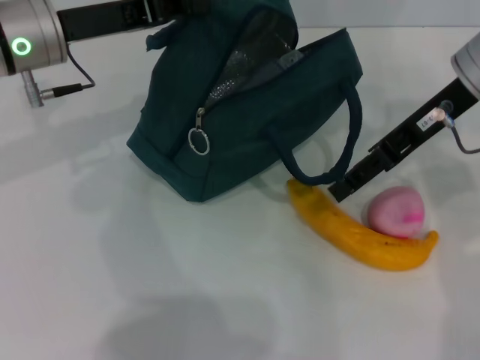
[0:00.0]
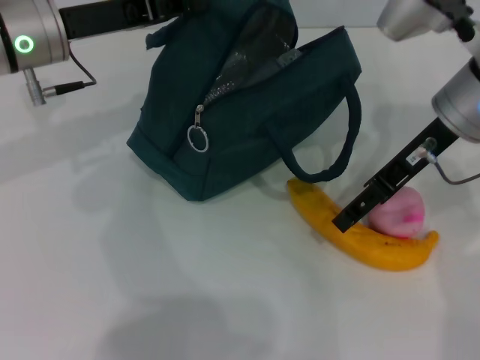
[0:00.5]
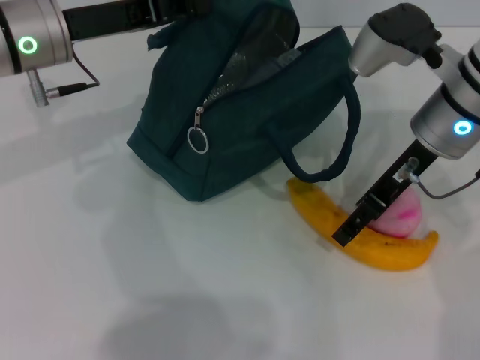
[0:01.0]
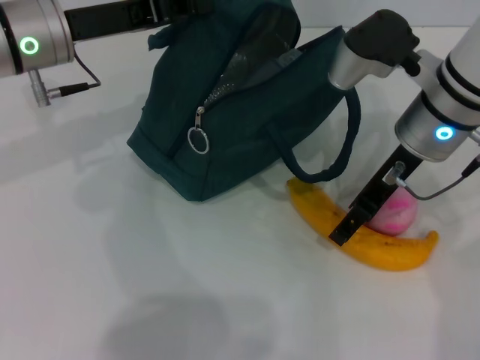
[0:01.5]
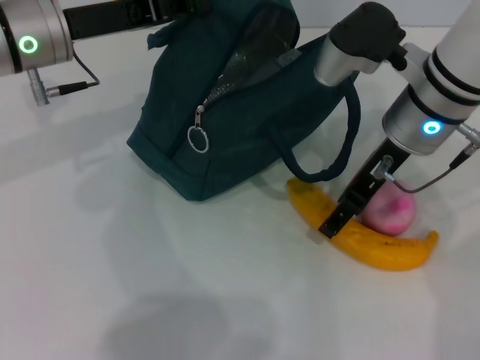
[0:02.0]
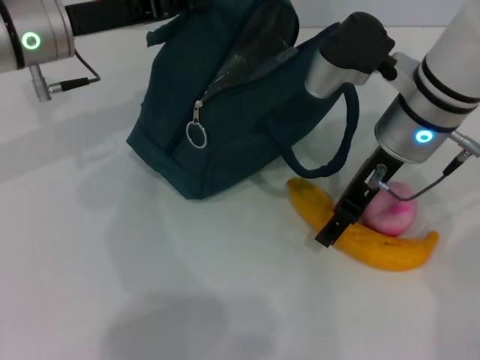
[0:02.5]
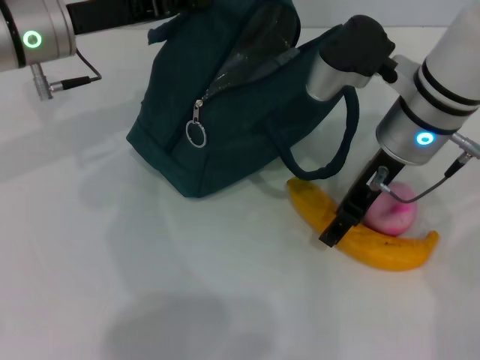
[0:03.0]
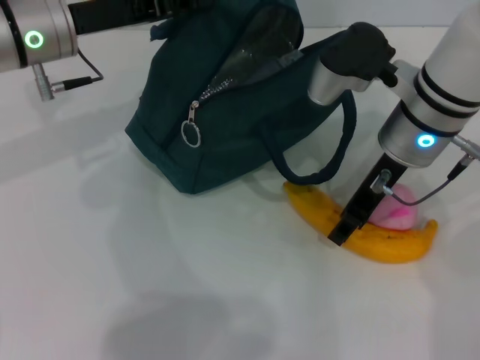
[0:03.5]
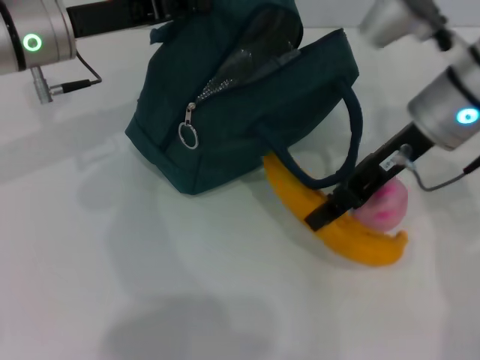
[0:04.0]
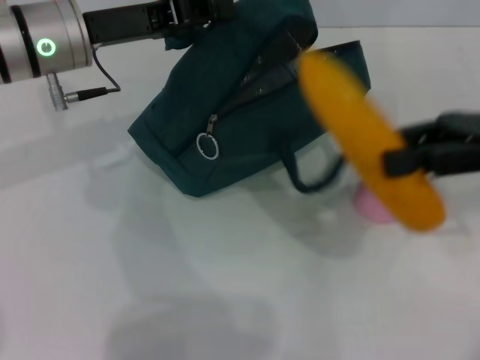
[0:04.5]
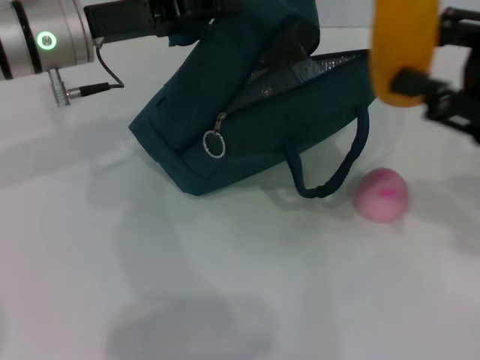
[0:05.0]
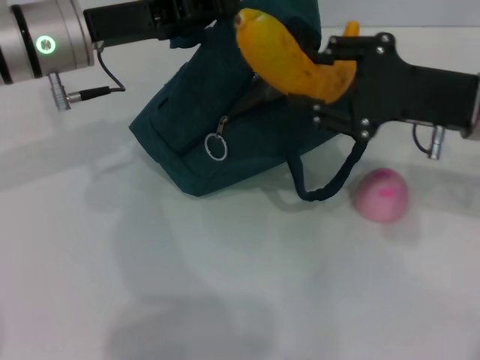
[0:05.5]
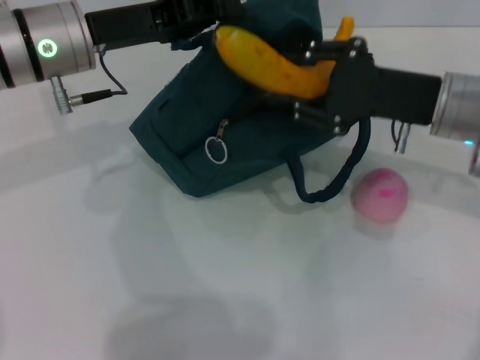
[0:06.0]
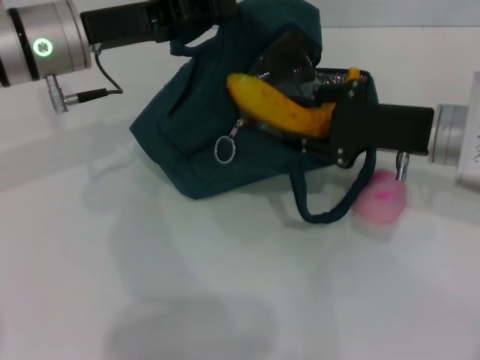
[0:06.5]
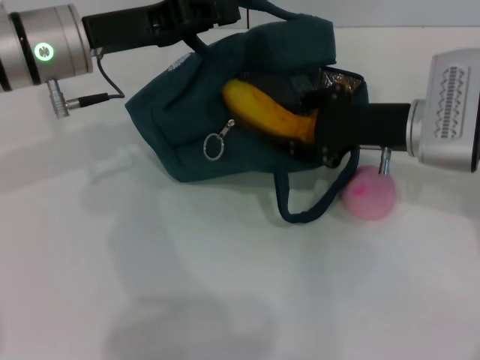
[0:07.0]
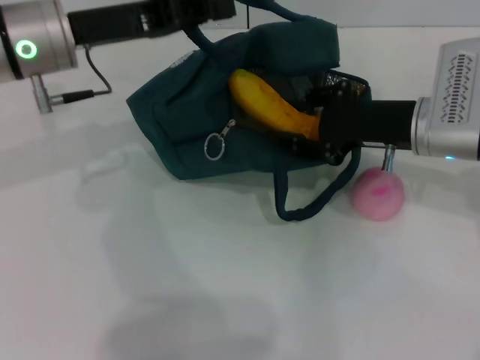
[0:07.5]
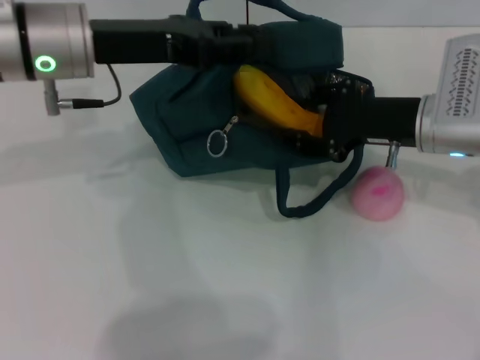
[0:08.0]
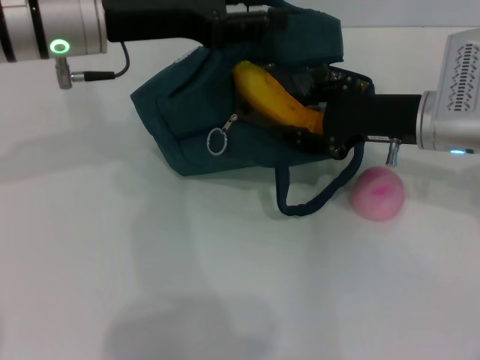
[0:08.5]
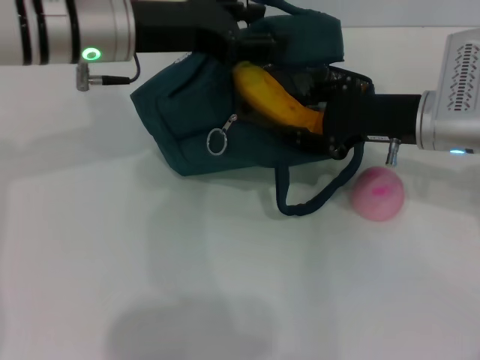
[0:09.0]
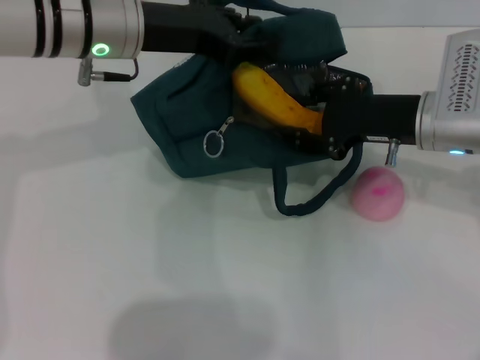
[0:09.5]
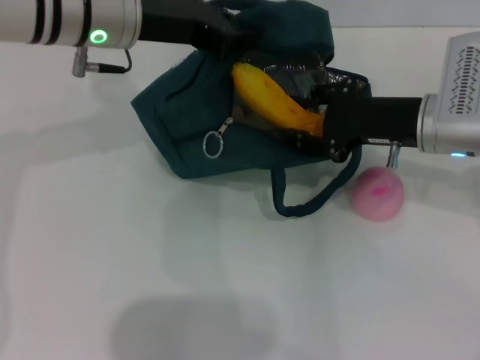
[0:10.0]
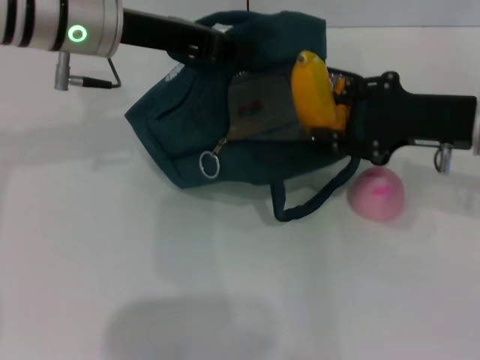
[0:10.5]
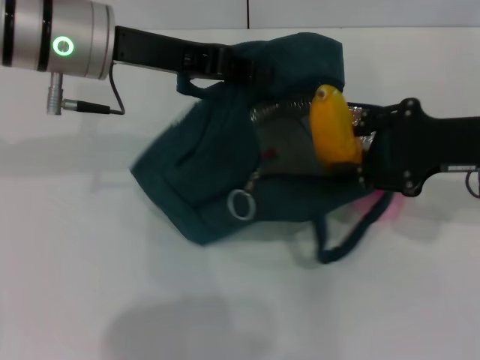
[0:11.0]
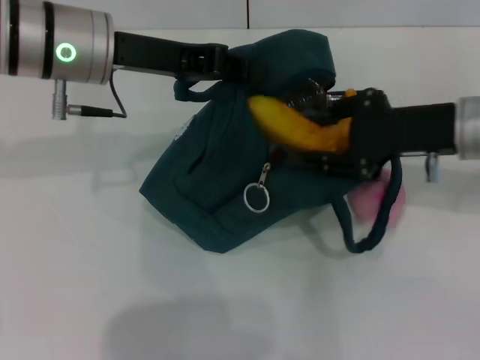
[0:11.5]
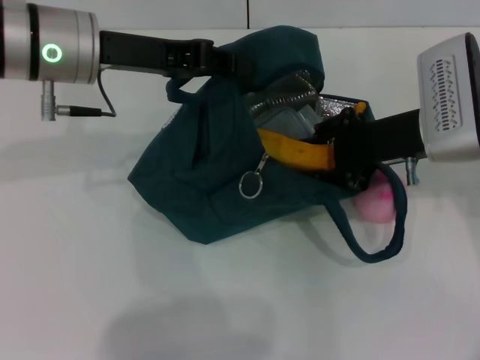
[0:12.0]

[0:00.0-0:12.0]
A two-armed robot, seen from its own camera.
Step, 0:00.0 to 0:03.0: Take the banana with your right hand.
0:00.0 to 0:02.0: The right gripper heads downward and to the left, covering some 10 cm.
0:02.0 to 0:04.0: The right gripper closes its fingers.
0:04.0 to 0:06.0: The right gripper travels to the right and back again, about 10 cm each way.
0:06.0 to 0:08.0: The left gripper opens its fingers.

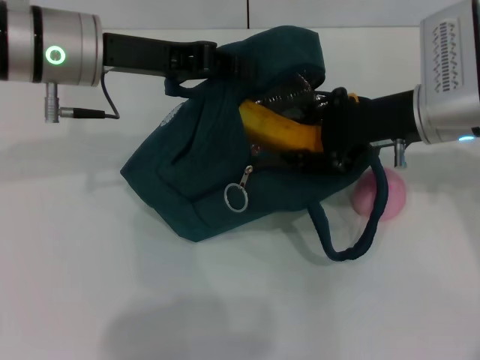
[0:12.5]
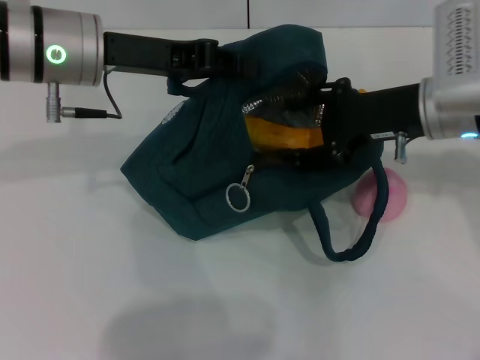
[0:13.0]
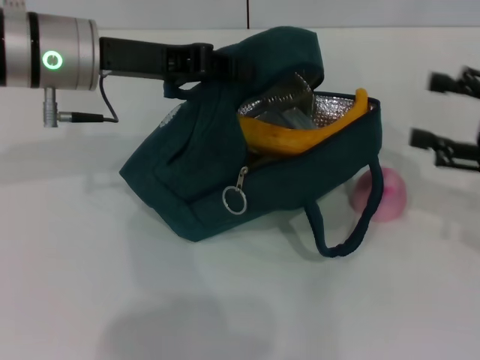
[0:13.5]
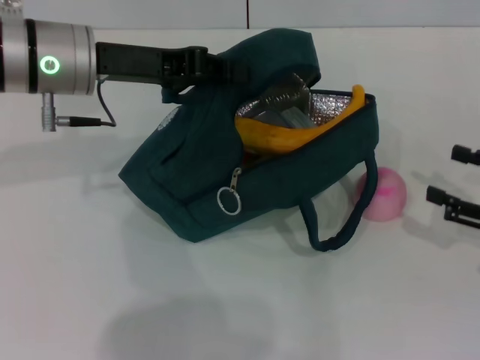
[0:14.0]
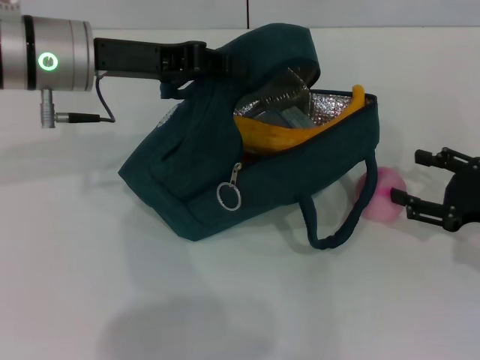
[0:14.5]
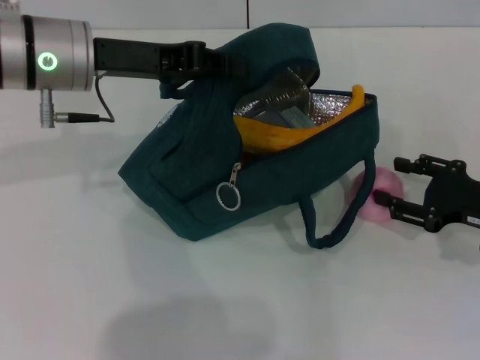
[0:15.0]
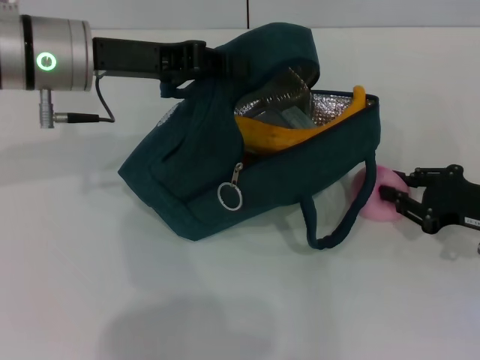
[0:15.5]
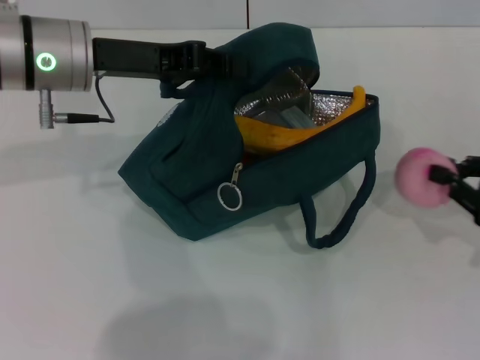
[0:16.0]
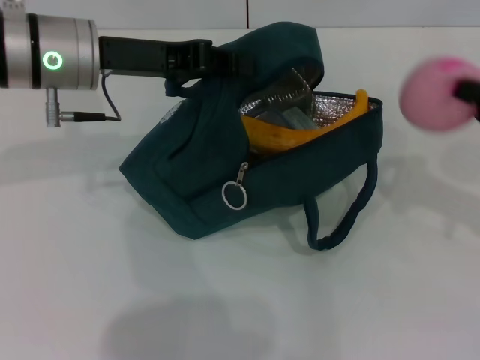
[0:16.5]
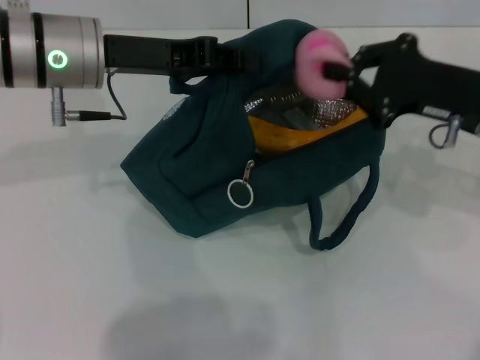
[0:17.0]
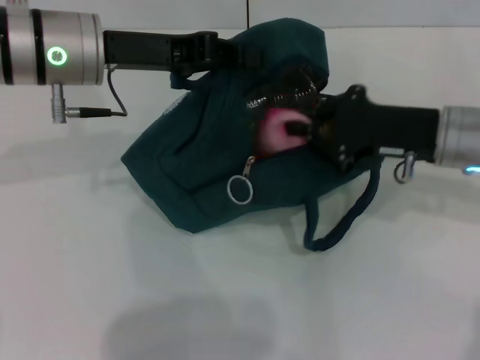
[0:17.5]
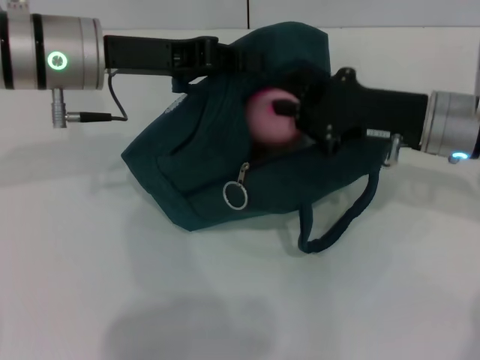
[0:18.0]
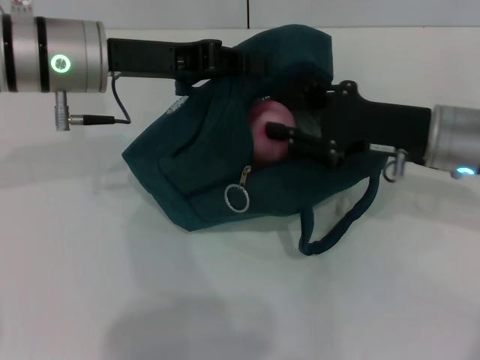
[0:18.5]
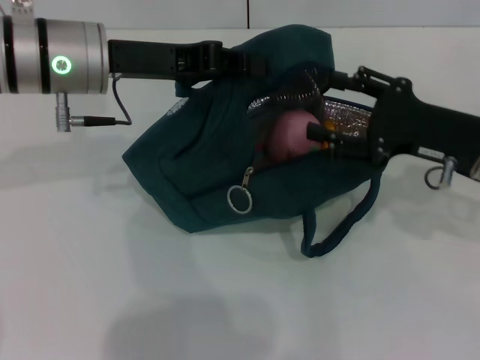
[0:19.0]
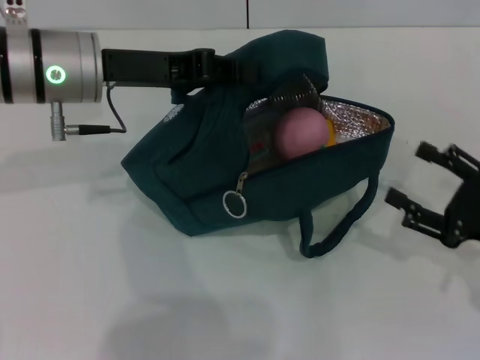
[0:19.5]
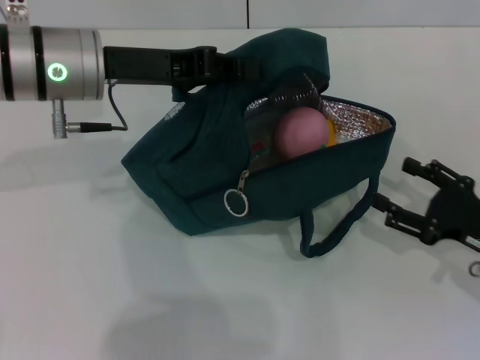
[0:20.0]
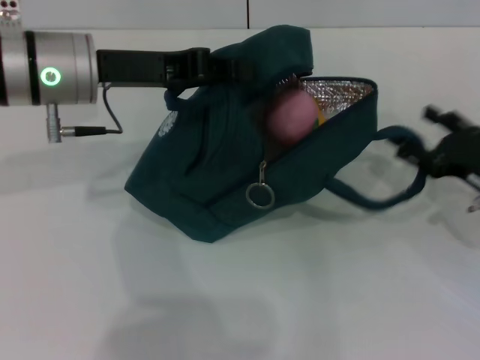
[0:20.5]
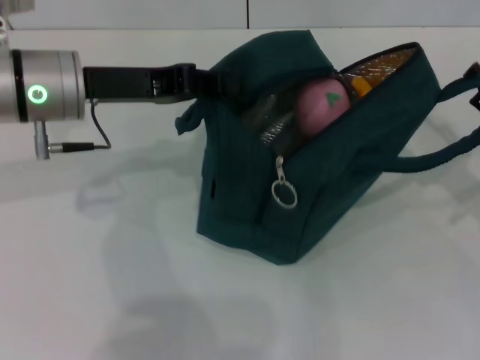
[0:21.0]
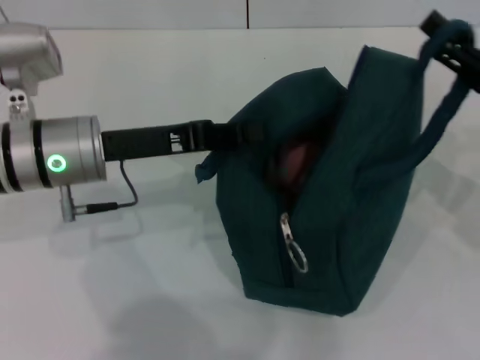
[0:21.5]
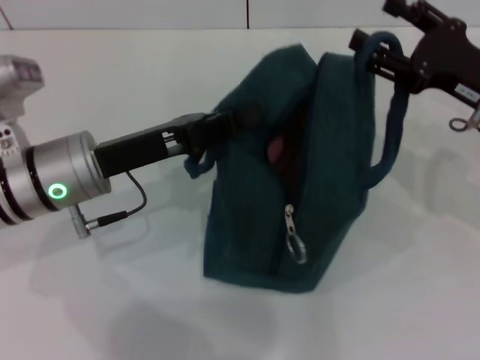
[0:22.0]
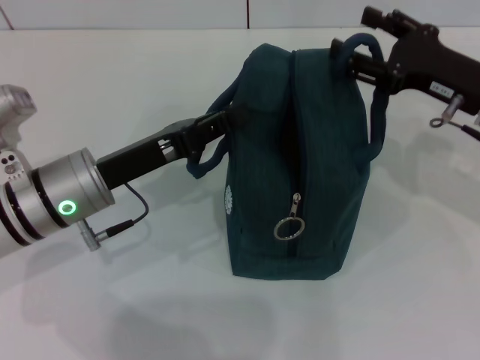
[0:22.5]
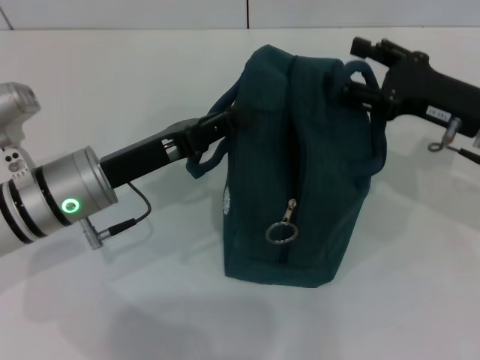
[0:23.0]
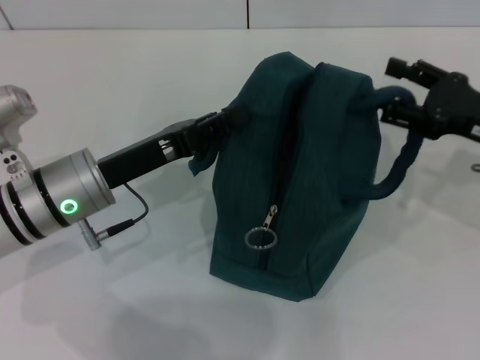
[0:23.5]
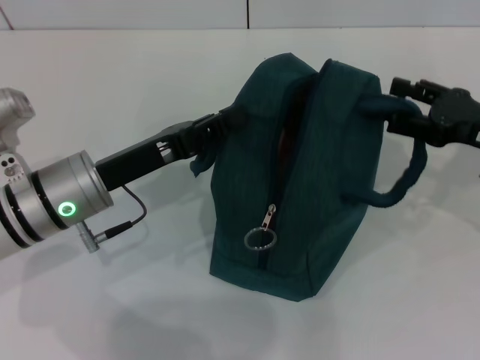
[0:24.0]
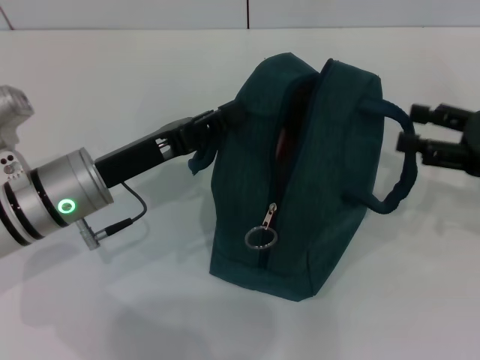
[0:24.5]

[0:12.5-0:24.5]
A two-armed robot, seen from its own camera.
Step, 0:13.5 to 0:15.0: Grab the peach with your right hand.
Step, 0:19.0 to 0:24.0: Hold the lunch bag with your right hand.
0:12.5 to 0:14.5: The right gripper is displaced to the right, downward and backward by roughly 20 cm.
0:14.5 to 0:16.5: The right gripper travels upward by about 5 cm, and closes.
0:16.5 to 0:18.5: The right gripper shifts some 15 cm to the left and forward.
0:18.5 to 0:20.5: The right gripper shifts roughly 10 cm to the right and downward, and opens.
0:20.5 to 0:22.5: The right gripper goes roughly 10 cm upward and forward, while the left gripper shifts some 10 cm downward and backward.
0:22.5 to 0:24.5: The right gripper travels to the right and backward by some 10 cm.

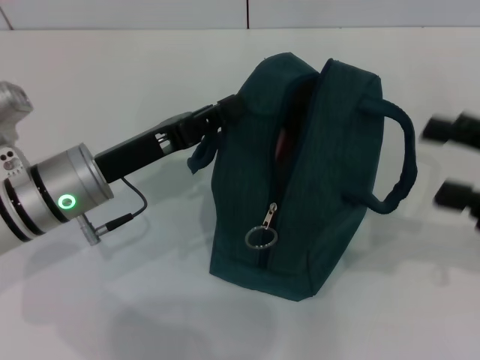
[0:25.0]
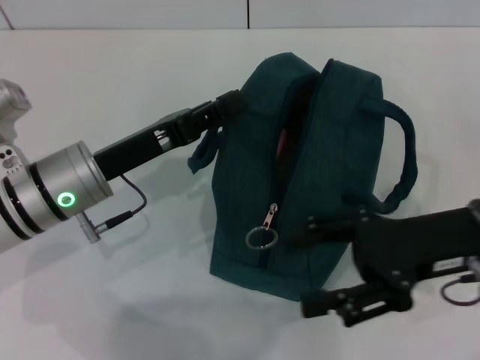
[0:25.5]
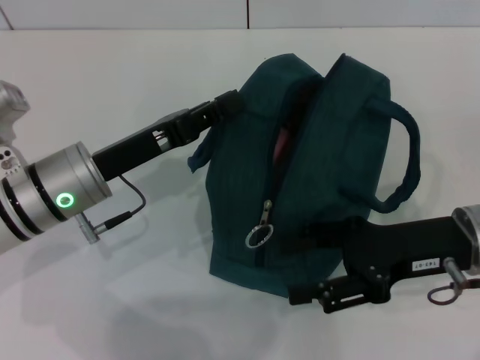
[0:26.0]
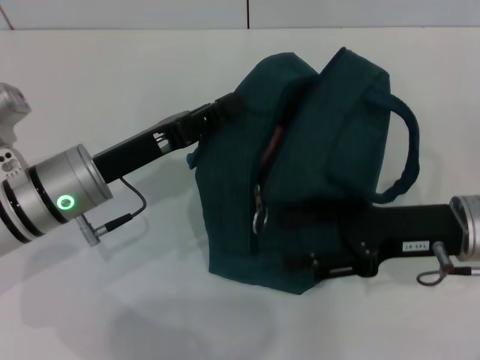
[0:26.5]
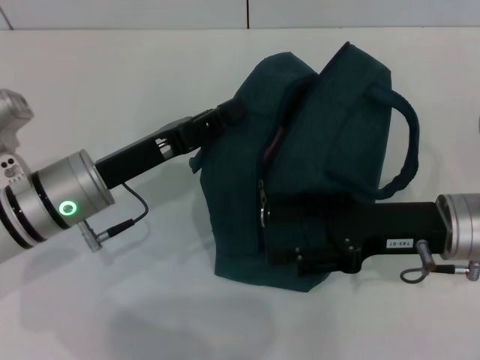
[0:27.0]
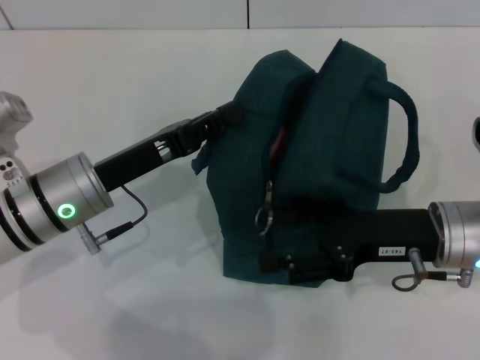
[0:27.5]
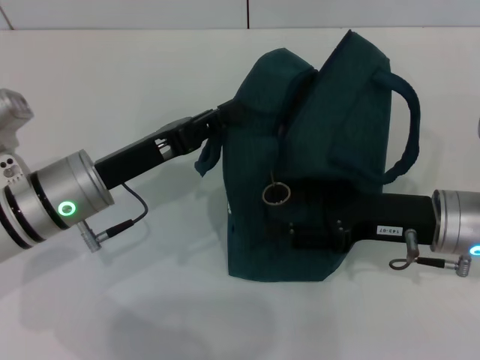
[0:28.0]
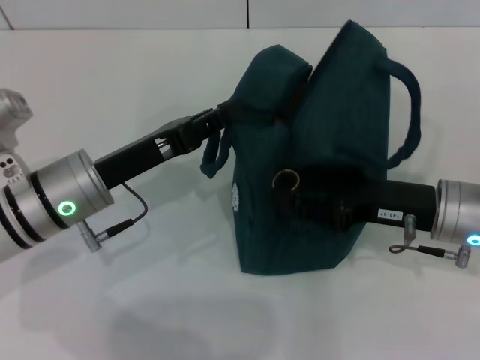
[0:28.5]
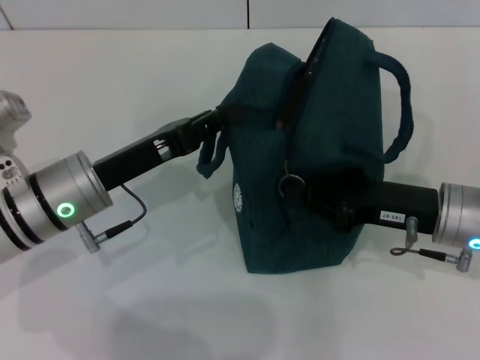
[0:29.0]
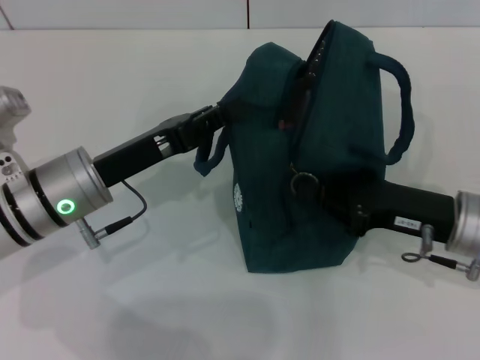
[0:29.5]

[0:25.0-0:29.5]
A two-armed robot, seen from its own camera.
0:25.0 to 0:27.0: The right gripper shifts some 10 cm to the left and downward.
0:27.0 to 0:29.5: The right gripper closes.
